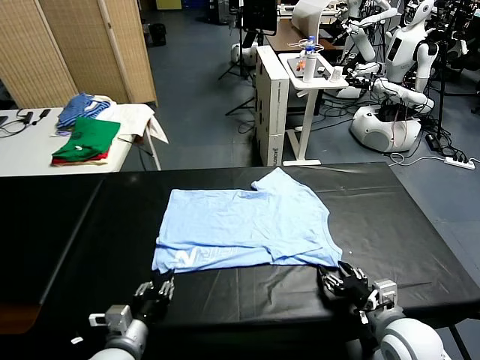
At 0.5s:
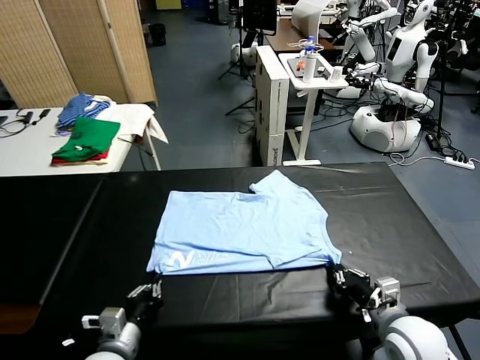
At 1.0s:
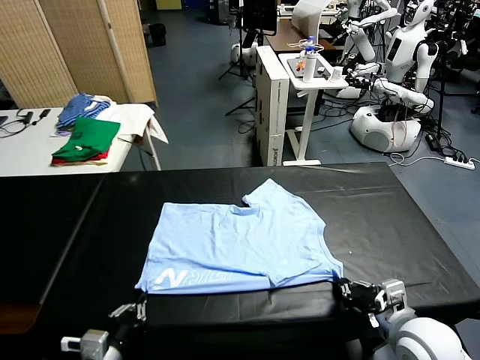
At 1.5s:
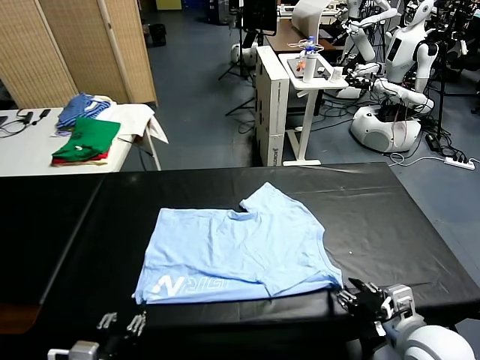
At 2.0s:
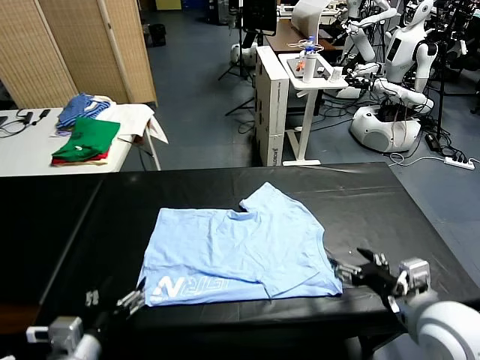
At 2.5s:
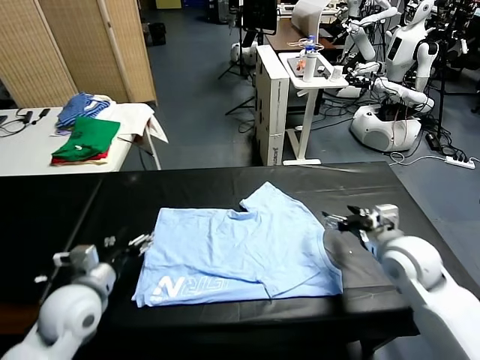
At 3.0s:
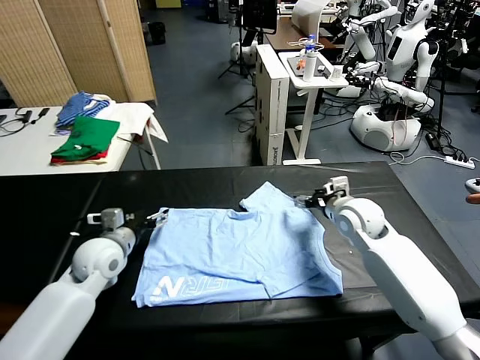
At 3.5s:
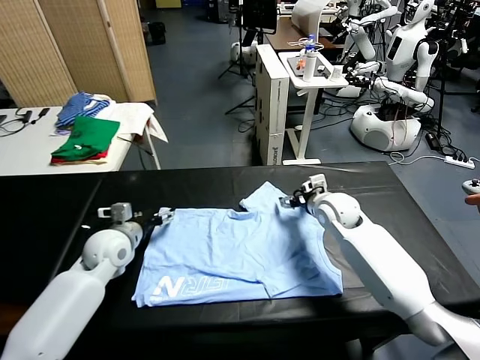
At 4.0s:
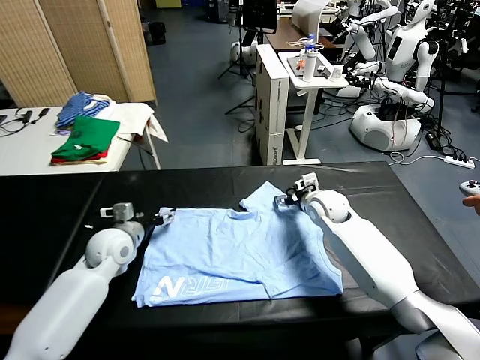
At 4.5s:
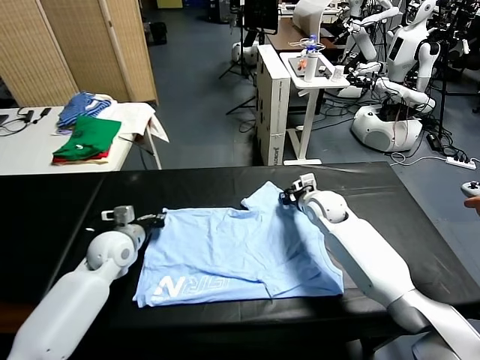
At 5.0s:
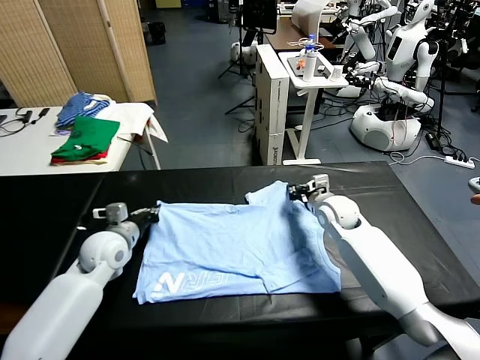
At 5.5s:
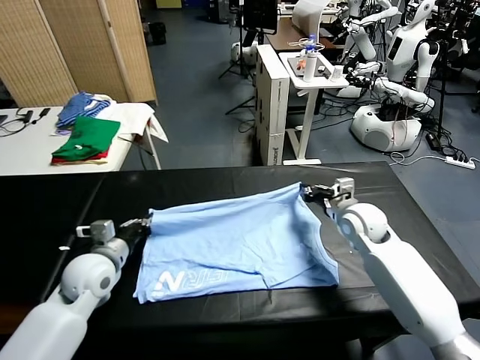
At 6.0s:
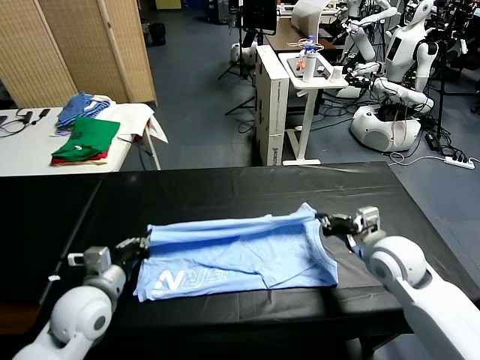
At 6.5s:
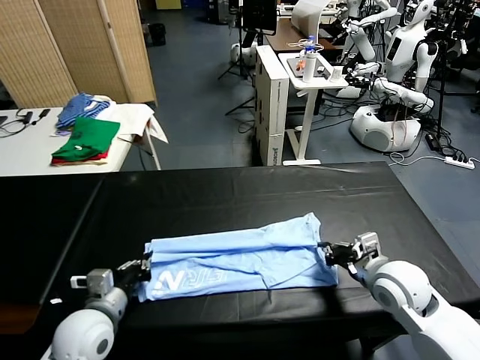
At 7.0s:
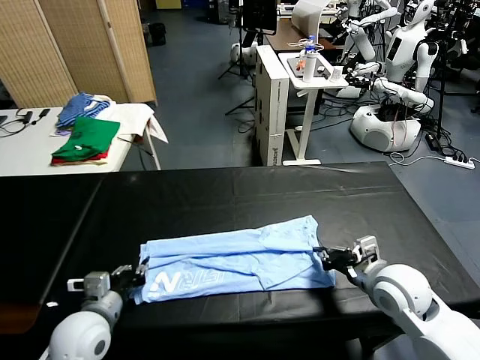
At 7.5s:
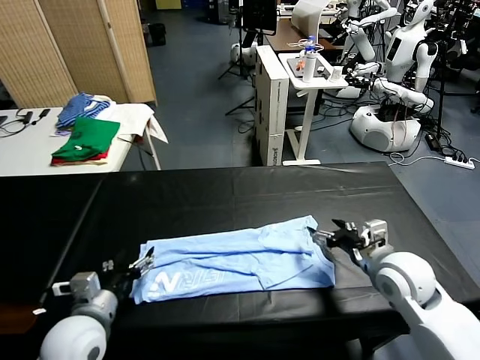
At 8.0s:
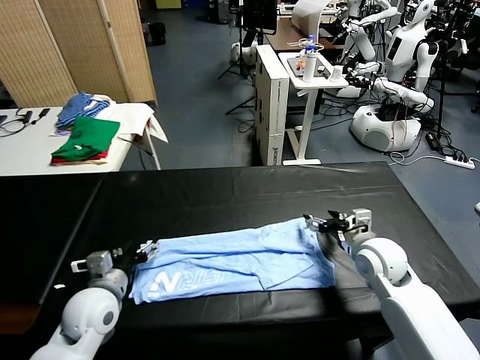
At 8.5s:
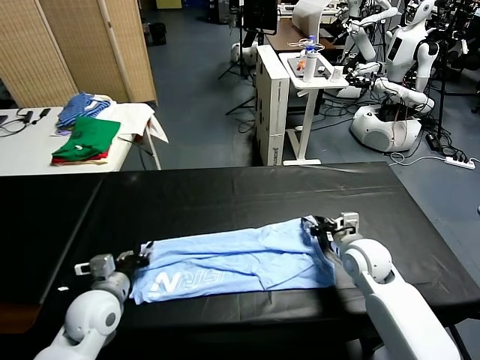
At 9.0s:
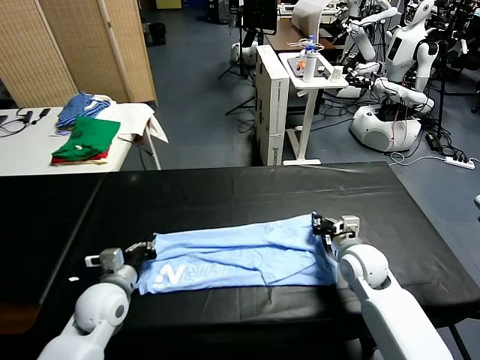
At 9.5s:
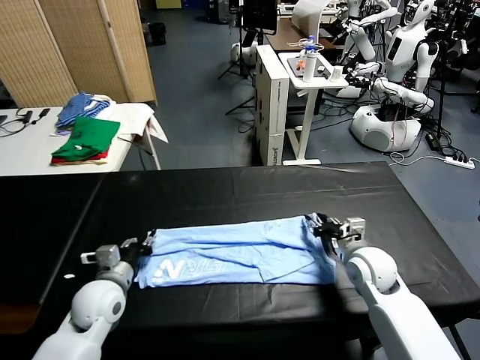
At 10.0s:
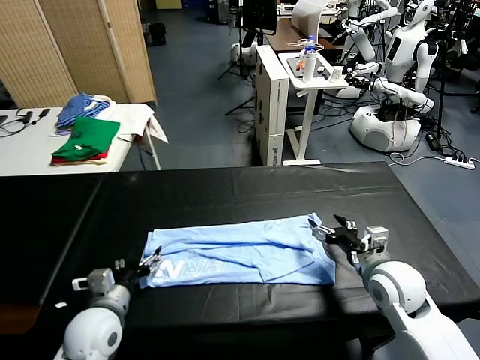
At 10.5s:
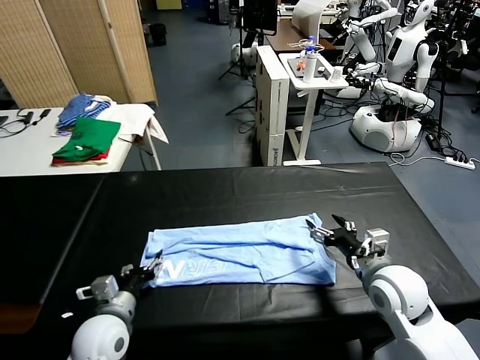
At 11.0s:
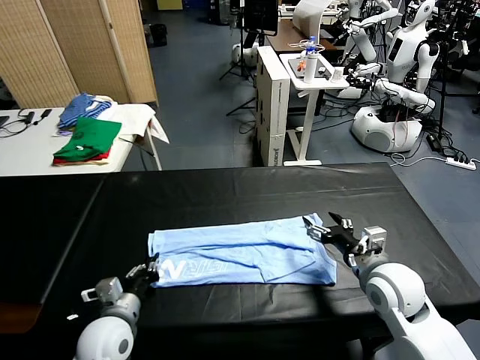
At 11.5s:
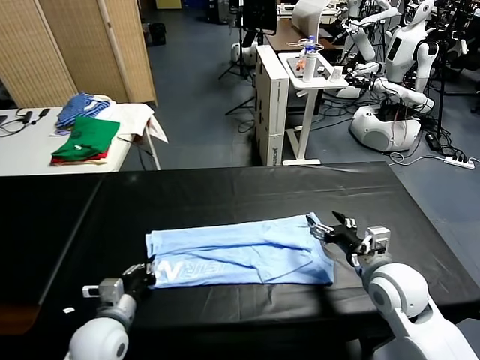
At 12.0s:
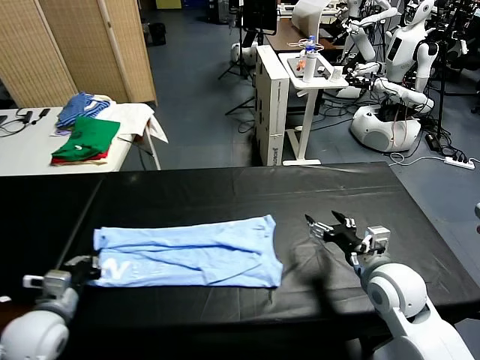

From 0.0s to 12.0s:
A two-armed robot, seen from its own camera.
Task of the whole recording: fold and organize the clothes.
Step, from 0.0s to 1.5s: Drag the clothes downward with both gripper.
Step, from 2.0s to 4.5s: use both grippers simultaneously to clamp the upper edge of the clothing fabric.
Step, from 5.0s to 7.0s: use both grippers to drag the upper edge of the fabric backward and fold it over the lower edge.
Step, from 7.5s to 11.5s: use the left gripper to clamp the left edge of the fabric.
From 0.0s to 2.0s: The right gripper shifts roughly 15 cm forward and upward, and opens, while the left gripper heads upward, covering some 10 cm, and opens its fingers.
From 2.0s to 4.0s: The right gripper heads forward and to the left, covering approximately 25 cm, and closes; the left gripper is displaced forward by roughly 25 cm.
From 4.0s to 6.0s: The left gripper travels backward by approximately 15 cm, and closes its fingers; the right gripper moves backward and to the right, approximately 25 cm, and closes up.
From 6.0s to 8.0s: The right gripper travels forward by some 5 cm, and opens up. The left gripper opens its fingers.
From 8.0s to 10.0s: The right gripper heads backward, covering roughly 10 cm, and closes, then reopens. Meanwhile the left gripper changes place by roughly 5 cm, and closes, then reopens.
From 10.0s to 12.0s: The left gripper is displaced to the left by about 10 cm, and closes up.

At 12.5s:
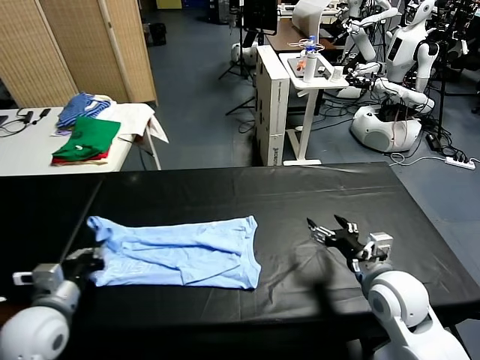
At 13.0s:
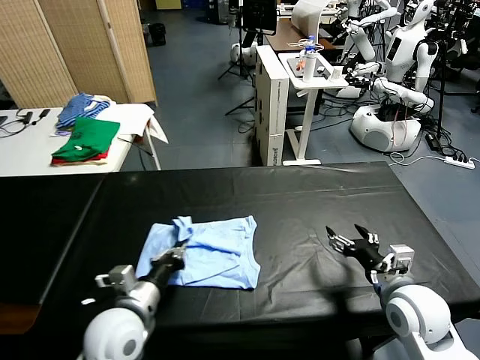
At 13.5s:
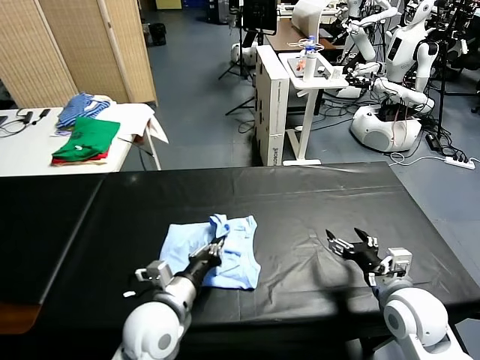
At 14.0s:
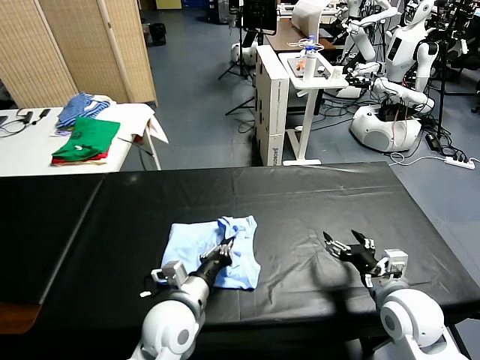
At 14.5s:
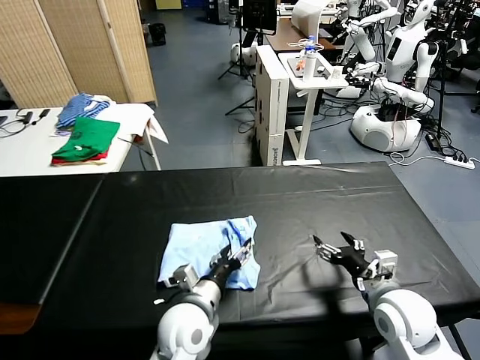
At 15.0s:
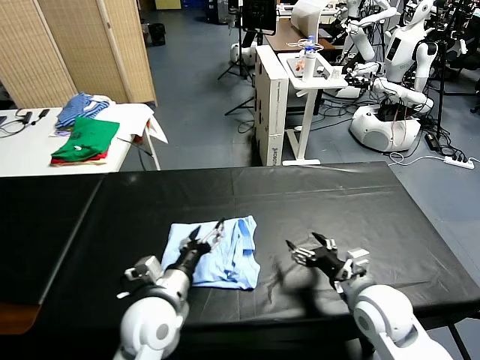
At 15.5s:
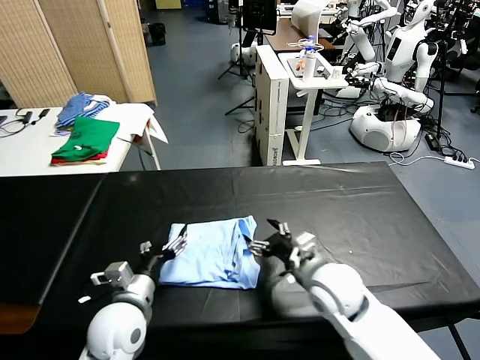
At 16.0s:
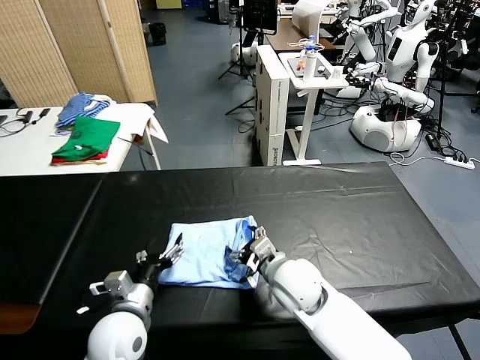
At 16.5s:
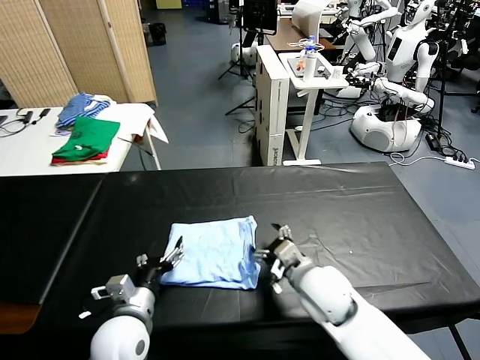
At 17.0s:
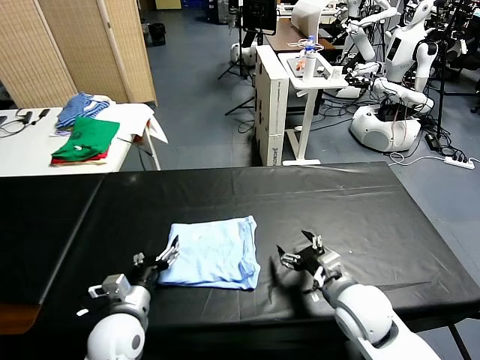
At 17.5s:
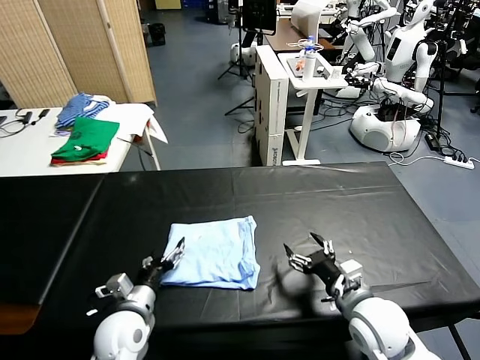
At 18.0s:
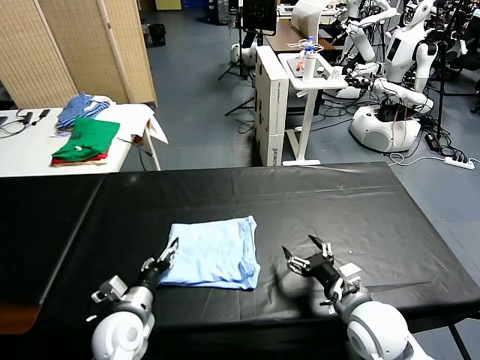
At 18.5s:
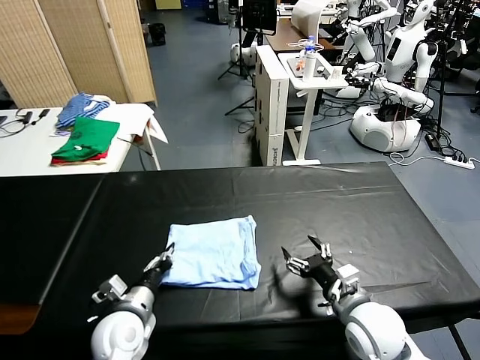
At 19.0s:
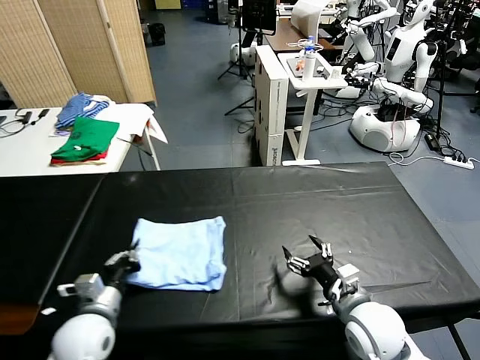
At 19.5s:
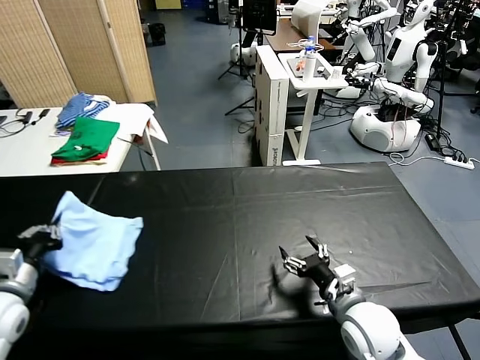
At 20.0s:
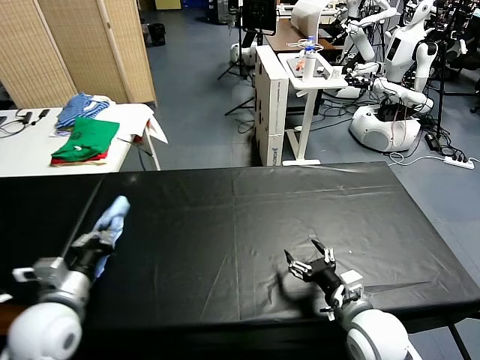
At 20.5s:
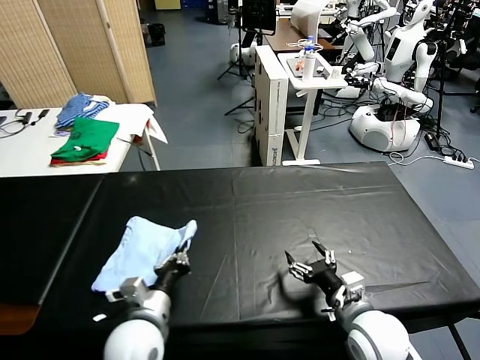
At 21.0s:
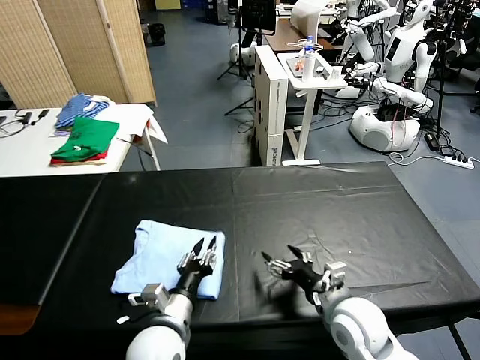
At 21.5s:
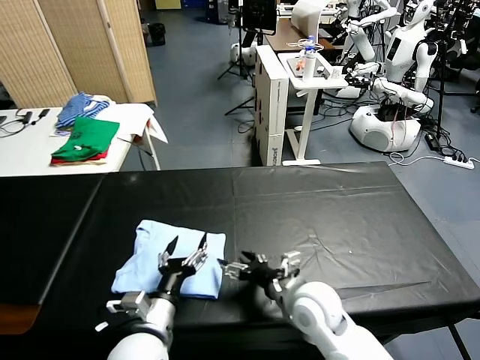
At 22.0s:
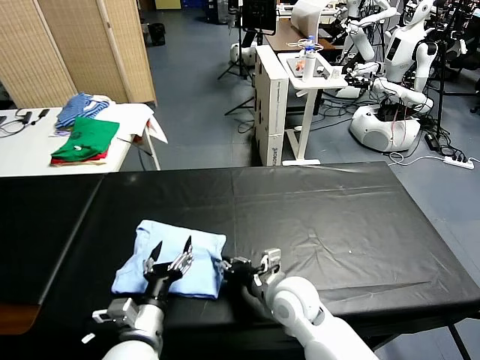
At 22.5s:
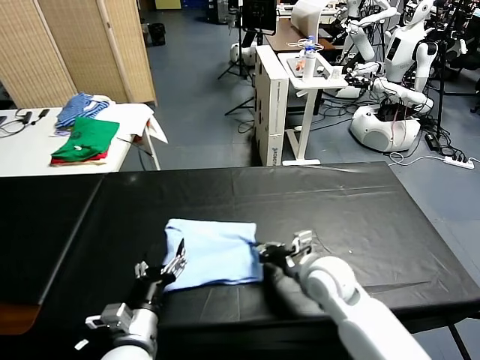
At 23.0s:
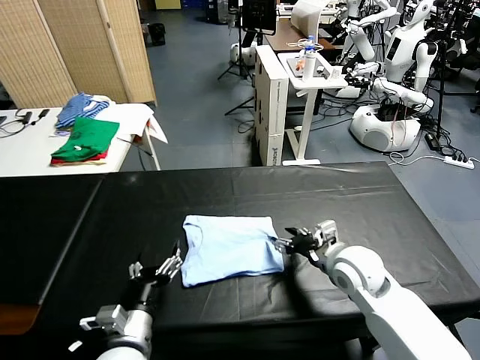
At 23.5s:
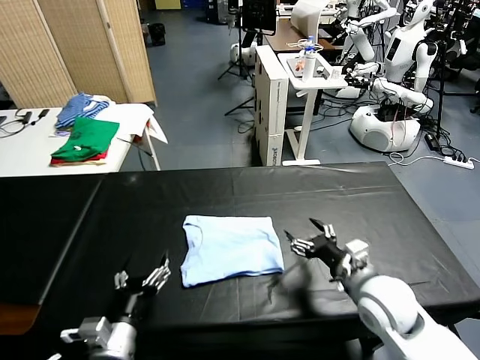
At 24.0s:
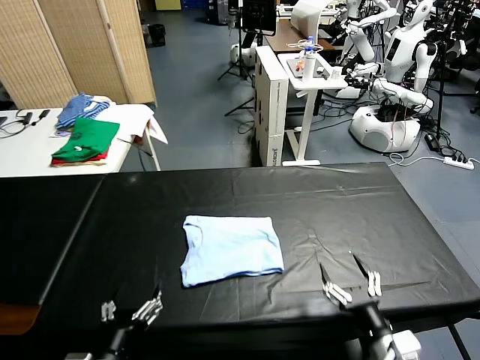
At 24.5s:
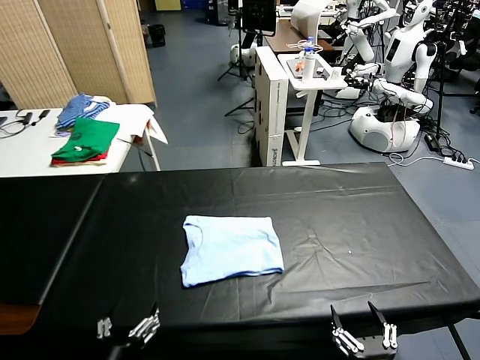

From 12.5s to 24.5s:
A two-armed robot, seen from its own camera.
Task of the whole recording: fold and organize the clothes.
Step, from 12.5s to 14.5s: use the left gripper to drag the left edge of the fabric to the left and folds it over the right edge.
Step, from 15.0s to 20.5s: Flip the folded clothes over with left gripper.
Step, from 21.0s to 22.5s: Drag the clothes to the center of the table.
From 12.5s to 14.5s: The left gripper goes roughly 20 cm to the right, and opens.
From 14.5s to 16.5s: The grippers both shift to the left by approximately 10 cm.
From 16.5s to 18.5s: The right gripper moves to the right and backward, approximately 10 cm, while the left gripper closes up.
From 18.5s to 20.5s: The left gripper reaches roughly 20 cm to the left, then returns.
From 20.5s to 22.5s: The left gripper opens its fingers; the right gripper heads forward and to the left, covering some 10 cm, and closes up.
From 22.5s to 24.5s: The left gripper goes approximately 10 cm backward, while the right gripper goes about 30 cm backward, and opens its fingers.
